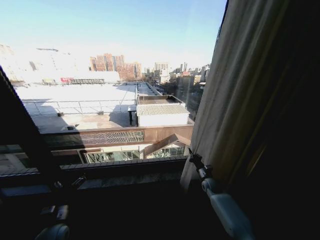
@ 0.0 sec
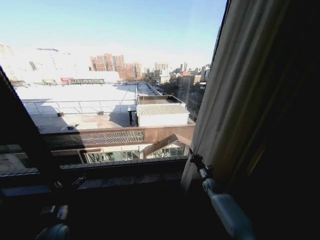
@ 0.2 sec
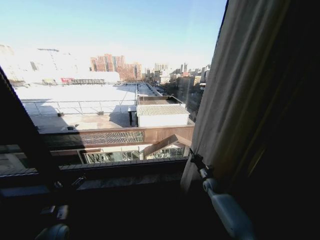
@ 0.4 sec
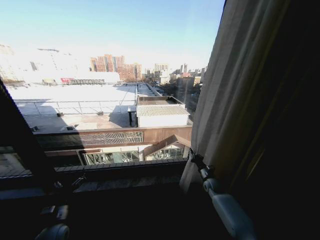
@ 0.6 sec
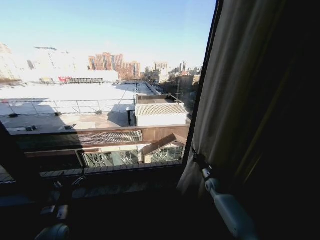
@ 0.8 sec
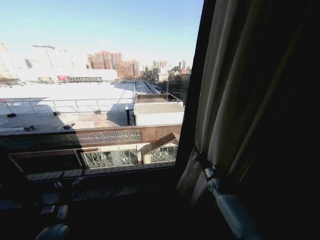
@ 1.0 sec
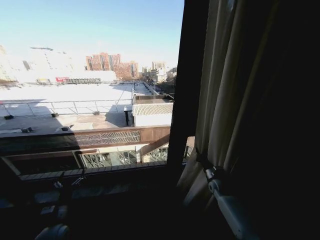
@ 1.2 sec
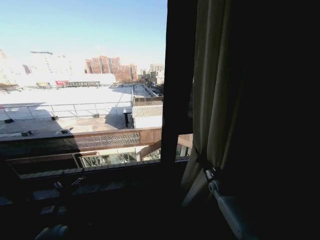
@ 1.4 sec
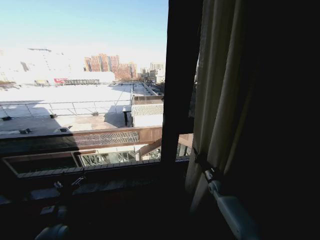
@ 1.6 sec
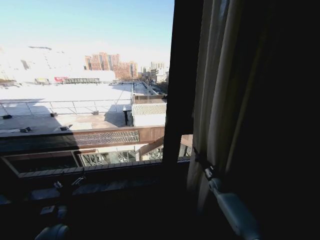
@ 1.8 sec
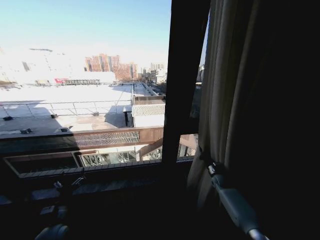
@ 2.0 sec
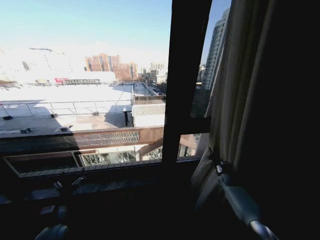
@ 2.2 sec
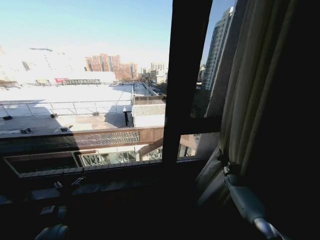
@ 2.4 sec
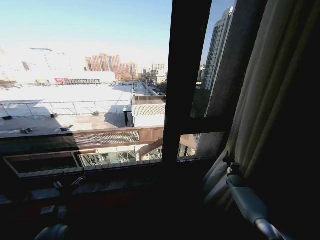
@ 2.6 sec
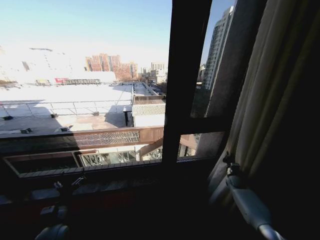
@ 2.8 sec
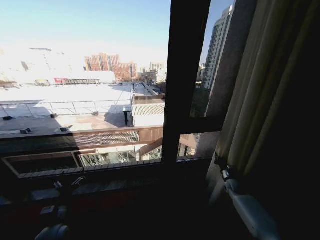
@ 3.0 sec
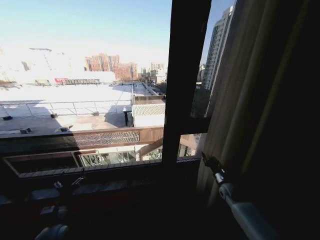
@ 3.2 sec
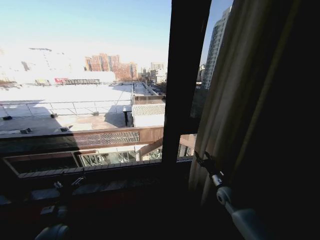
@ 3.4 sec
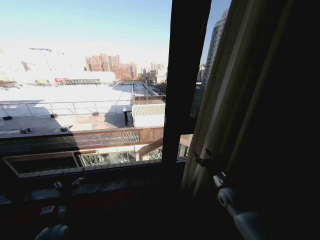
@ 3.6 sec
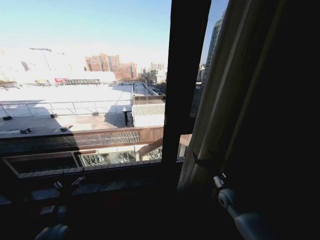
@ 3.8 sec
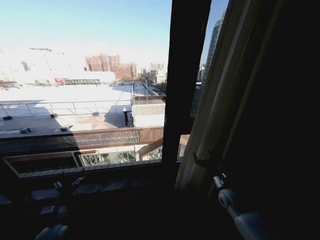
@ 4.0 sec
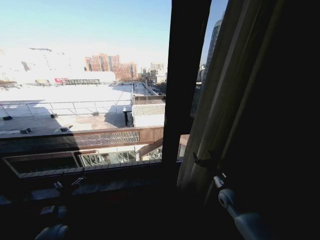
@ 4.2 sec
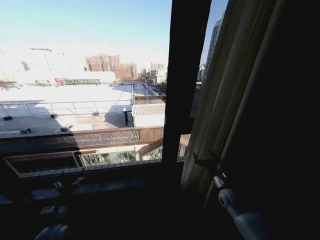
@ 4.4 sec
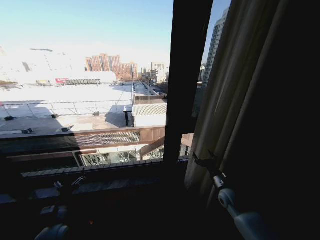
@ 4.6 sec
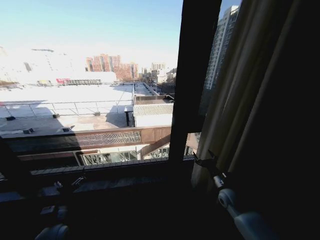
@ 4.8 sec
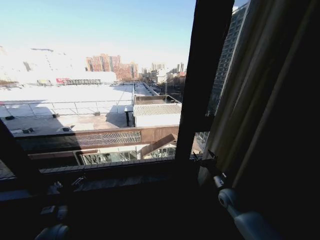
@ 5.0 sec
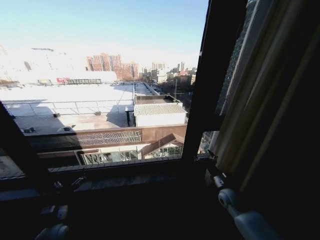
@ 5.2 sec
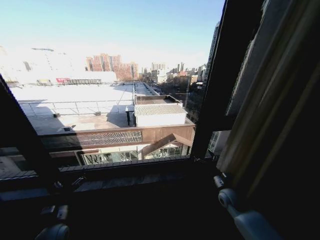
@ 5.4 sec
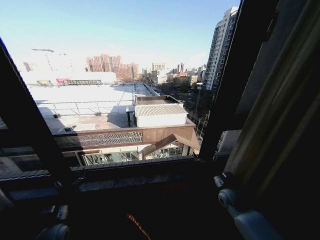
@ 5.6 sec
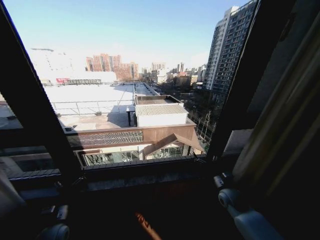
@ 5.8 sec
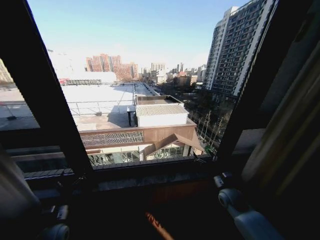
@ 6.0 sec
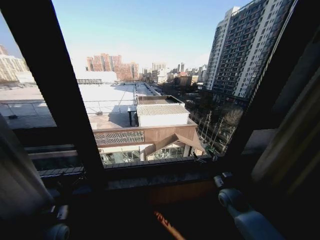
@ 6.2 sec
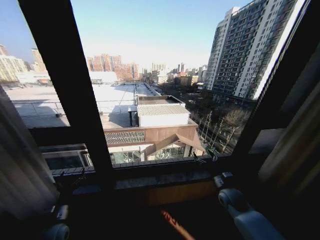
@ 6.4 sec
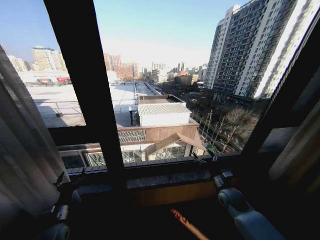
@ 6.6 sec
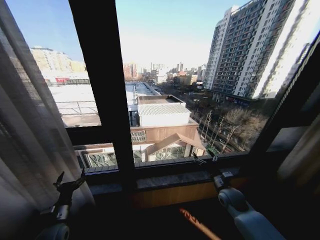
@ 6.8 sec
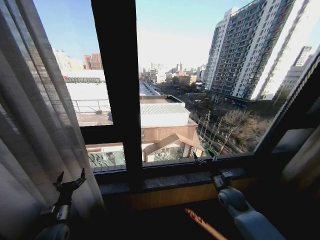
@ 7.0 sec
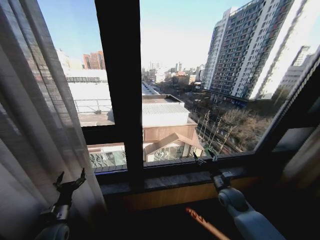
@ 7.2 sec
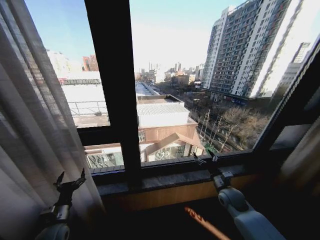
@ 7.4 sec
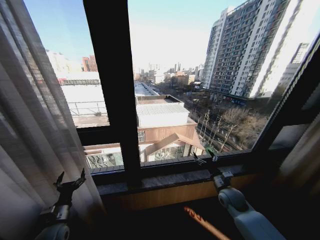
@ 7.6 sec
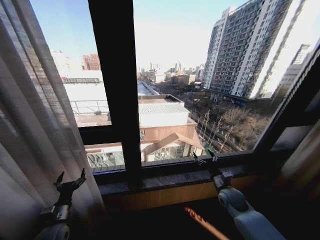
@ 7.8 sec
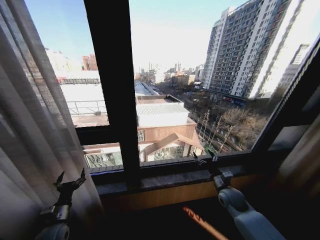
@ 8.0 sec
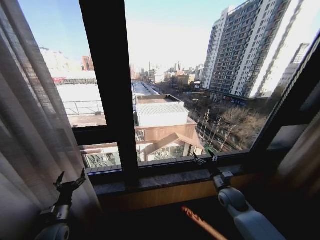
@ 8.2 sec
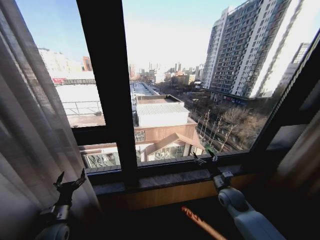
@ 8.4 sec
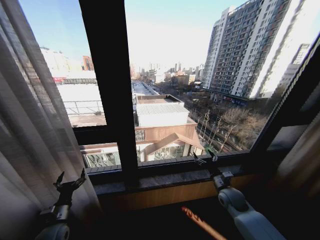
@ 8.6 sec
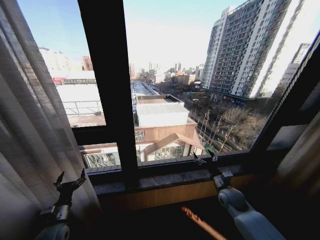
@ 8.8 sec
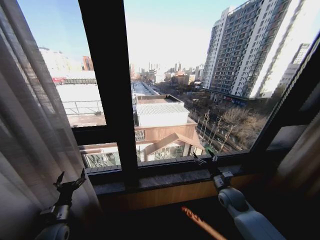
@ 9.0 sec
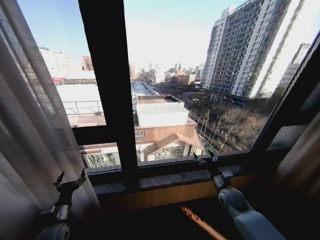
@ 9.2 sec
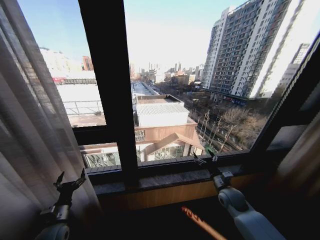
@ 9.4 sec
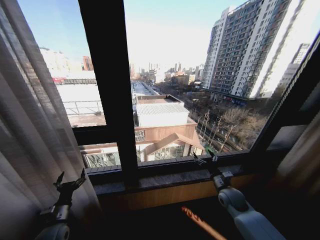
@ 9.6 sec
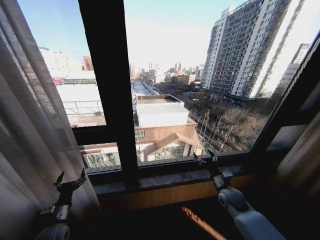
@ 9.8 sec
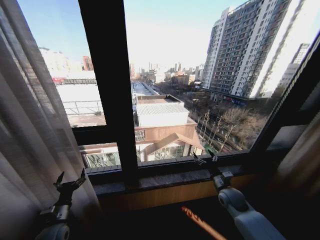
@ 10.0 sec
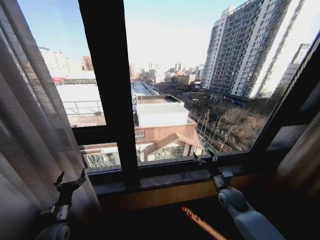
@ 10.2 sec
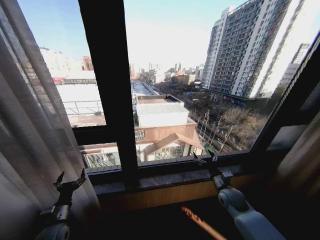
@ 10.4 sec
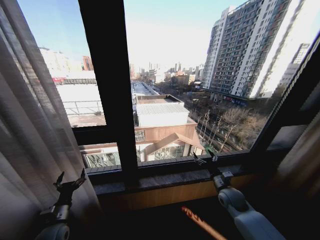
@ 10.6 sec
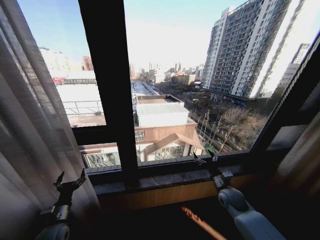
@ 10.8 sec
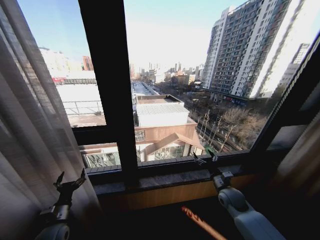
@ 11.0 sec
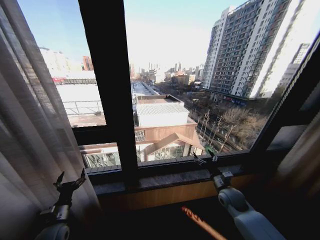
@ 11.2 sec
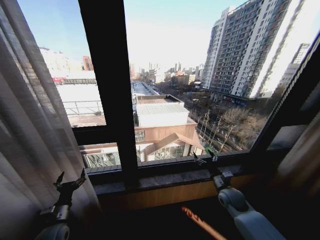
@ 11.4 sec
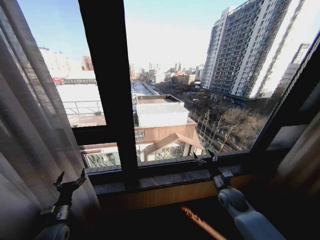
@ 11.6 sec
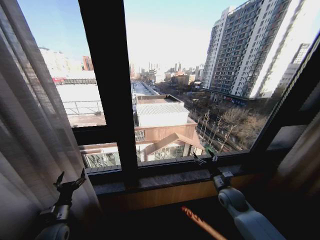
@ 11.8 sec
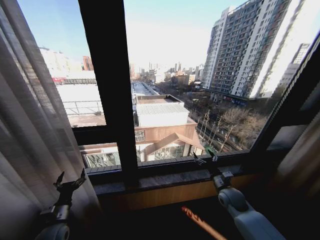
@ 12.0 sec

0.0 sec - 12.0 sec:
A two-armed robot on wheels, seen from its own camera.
Task of the whole recording: Open the curtains by pulling them apart, changing their state from closed to fully open.
1.6 sec - 3.0 sec: The right gripper travels to the right by about 10 cm.
3.0 sec - 4.4 sec: The right gripper moves to the left, backward and upward, approximately 15 cm, and opens up.
7.6 sec - 12.0 sec: Neither gripper changes place.

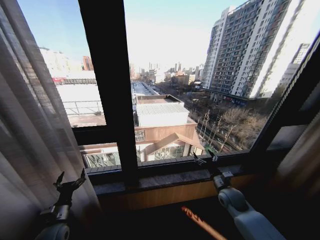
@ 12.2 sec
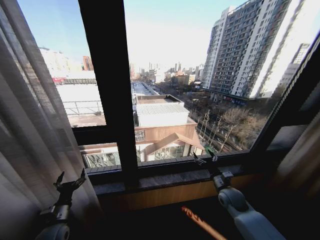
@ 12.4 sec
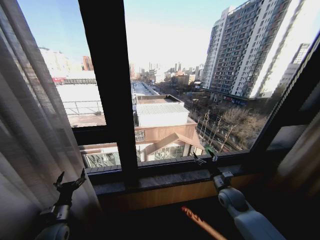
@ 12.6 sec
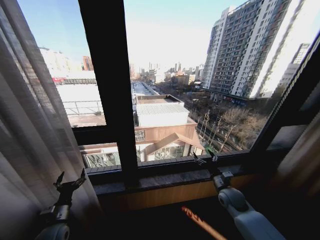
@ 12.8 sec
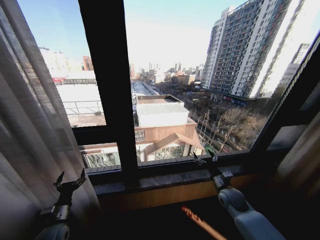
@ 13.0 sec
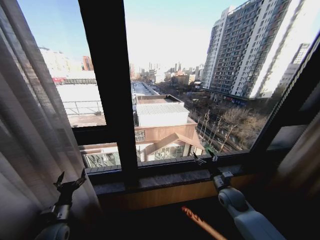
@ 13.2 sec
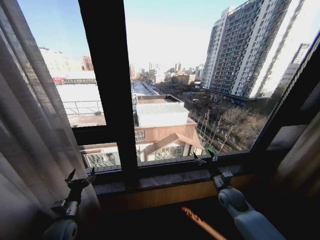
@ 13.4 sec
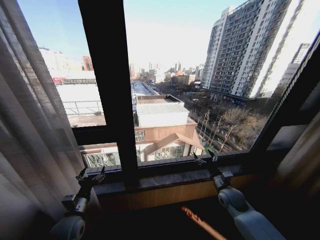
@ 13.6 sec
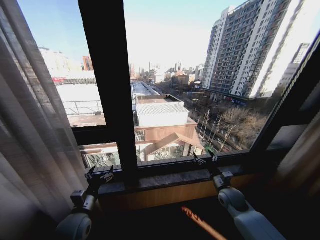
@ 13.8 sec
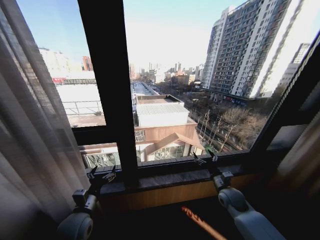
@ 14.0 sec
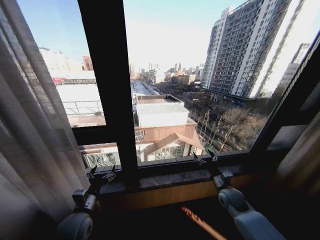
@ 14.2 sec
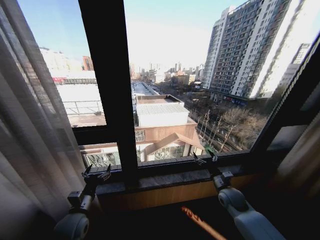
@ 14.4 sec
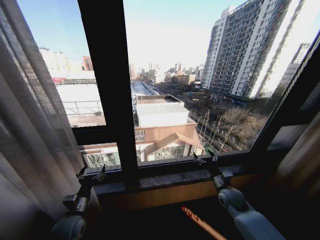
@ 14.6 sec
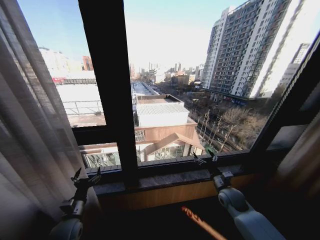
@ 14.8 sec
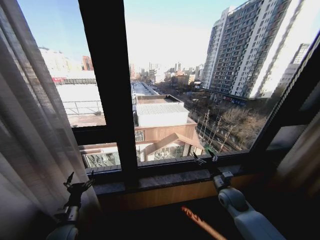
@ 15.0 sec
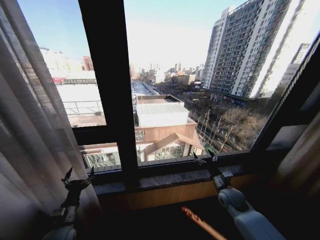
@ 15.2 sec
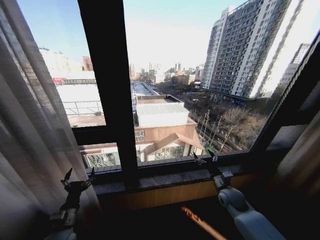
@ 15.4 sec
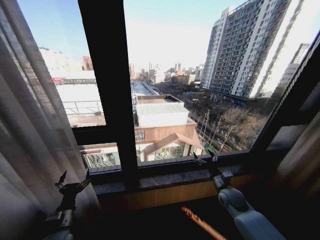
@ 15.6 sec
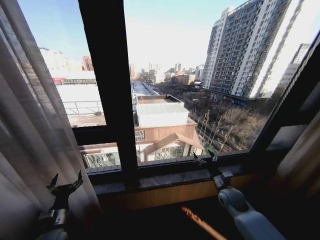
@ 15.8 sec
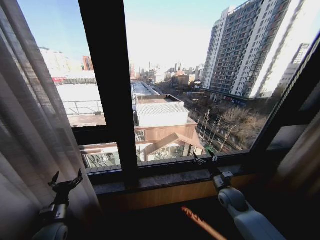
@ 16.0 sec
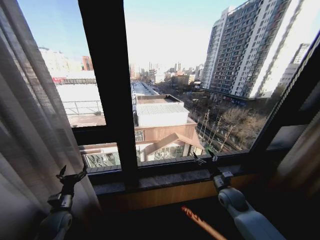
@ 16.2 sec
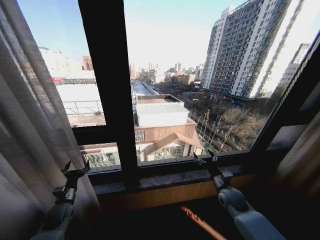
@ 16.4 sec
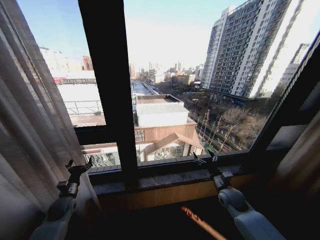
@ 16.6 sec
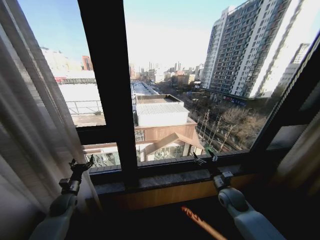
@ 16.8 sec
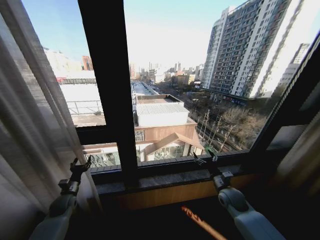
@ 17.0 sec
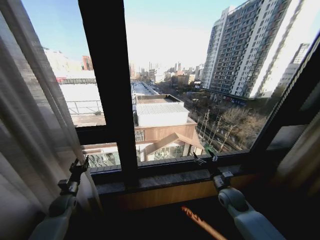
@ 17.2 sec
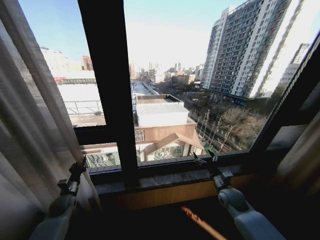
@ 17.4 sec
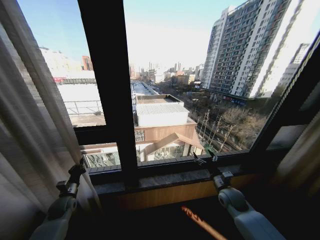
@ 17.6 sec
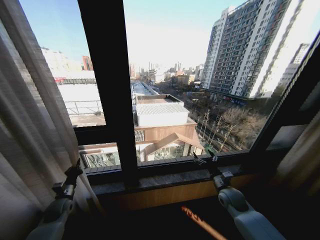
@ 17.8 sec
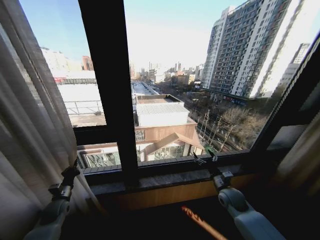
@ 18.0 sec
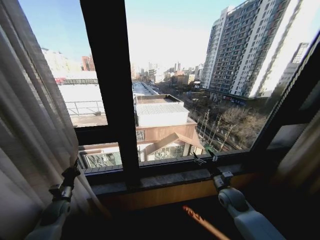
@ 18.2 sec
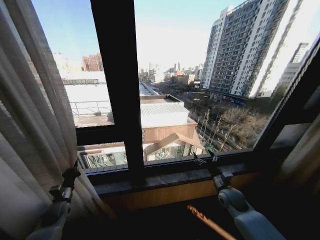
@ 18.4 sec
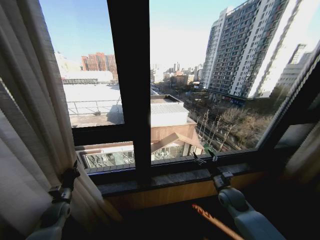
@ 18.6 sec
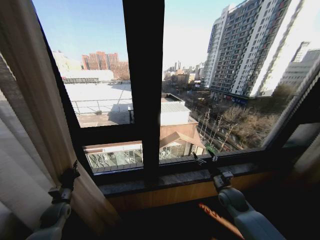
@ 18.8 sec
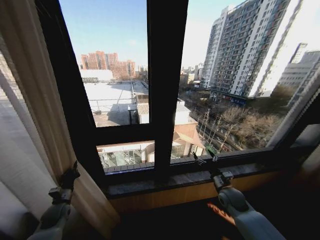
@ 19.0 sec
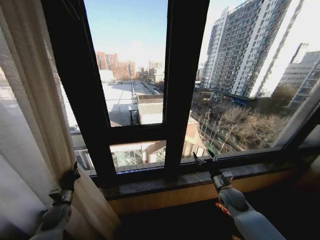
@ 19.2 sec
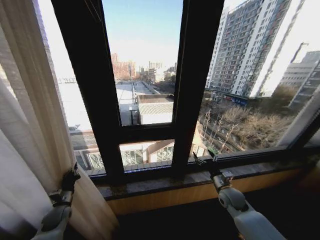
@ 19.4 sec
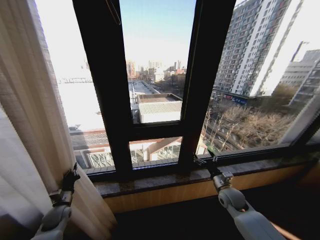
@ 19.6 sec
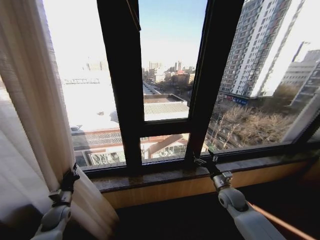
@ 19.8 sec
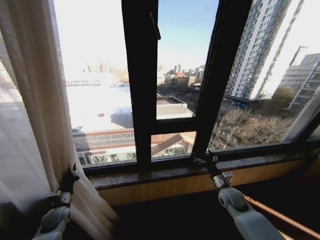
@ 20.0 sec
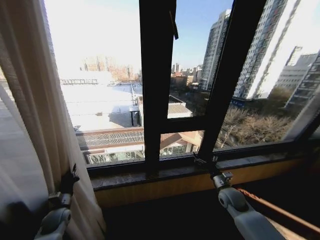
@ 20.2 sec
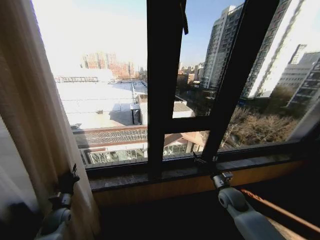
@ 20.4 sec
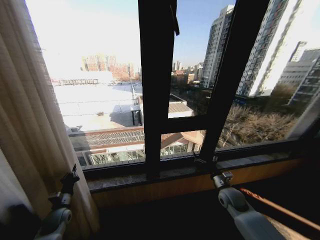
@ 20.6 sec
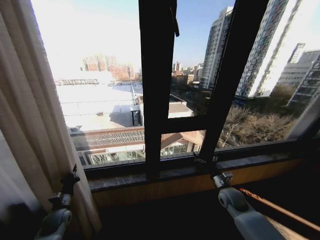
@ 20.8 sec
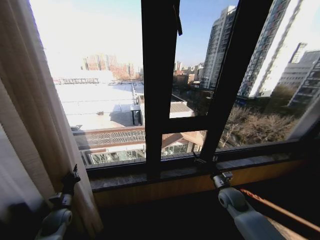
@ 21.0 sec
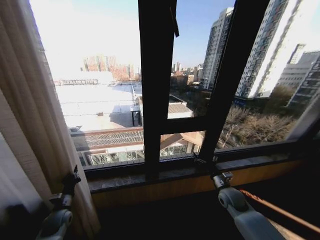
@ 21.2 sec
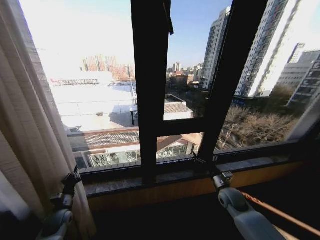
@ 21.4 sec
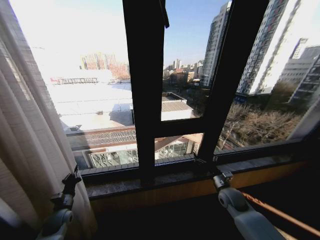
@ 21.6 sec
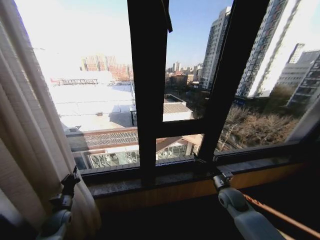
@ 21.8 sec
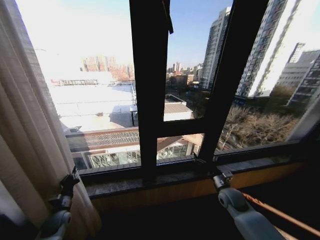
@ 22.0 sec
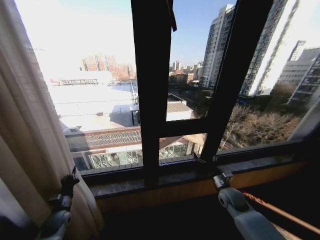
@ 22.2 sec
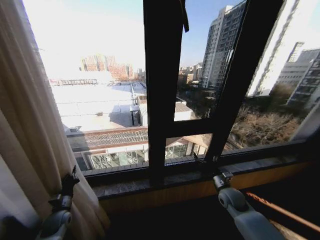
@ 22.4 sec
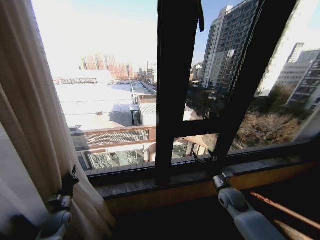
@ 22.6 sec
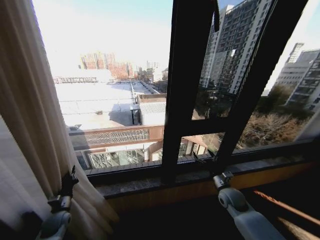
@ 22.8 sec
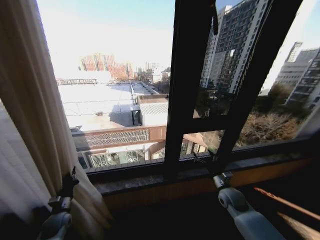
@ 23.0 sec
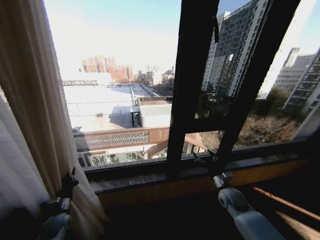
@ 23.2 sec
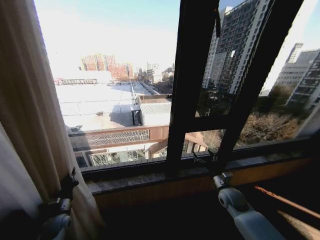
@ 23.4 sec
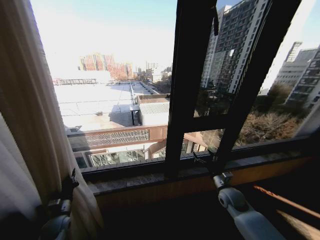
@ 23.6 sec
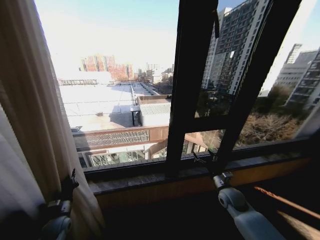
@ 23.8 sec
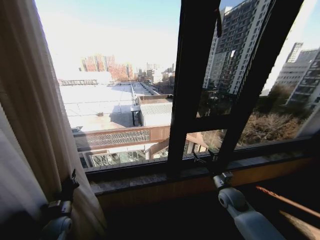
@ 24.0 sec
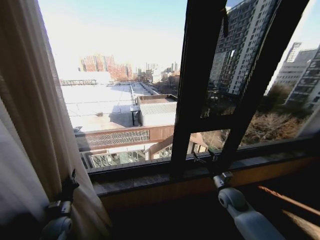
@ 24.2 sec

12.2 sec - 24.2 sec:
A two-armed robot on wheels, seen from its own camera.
Task of the whole recording: Open the curtains by pulling them apart, changing their state from closed to fully open.
12.2 sec - 13.8 sec: The left gripper heads to the right and upward, covering approximately 15 cm.
13.8 sec - 15.2 sec: The left gripper goes approximately 10 cm to the left and downward.
15.2 sec - 16.6 sec: The left gripper is displaced forward and to the left by some 15 cm.
16.6 sec - 18.2 sec: The left gripper closes.
